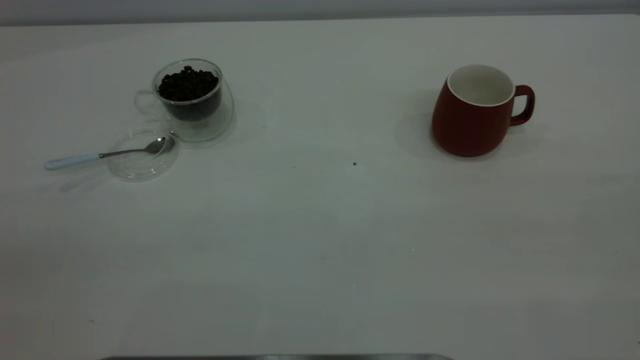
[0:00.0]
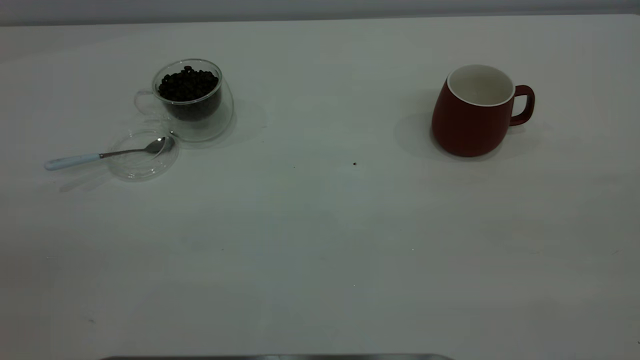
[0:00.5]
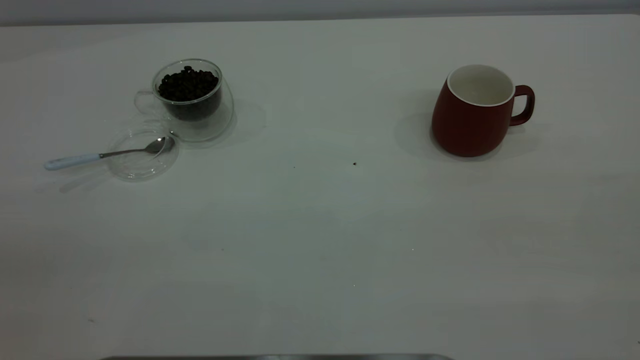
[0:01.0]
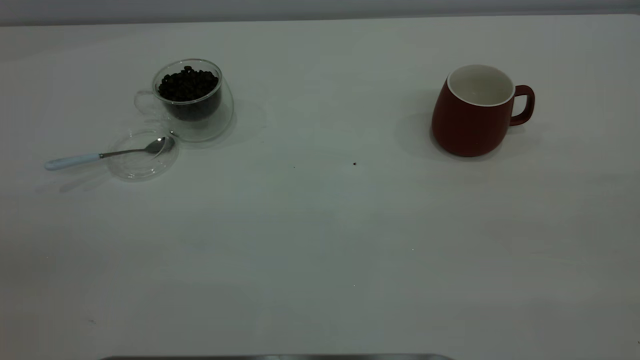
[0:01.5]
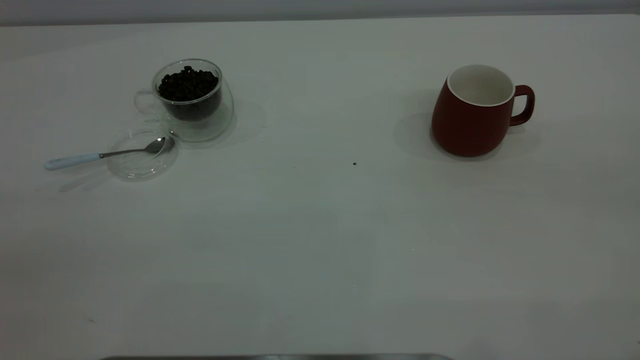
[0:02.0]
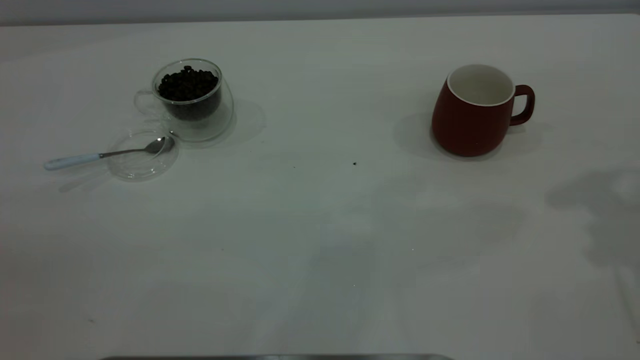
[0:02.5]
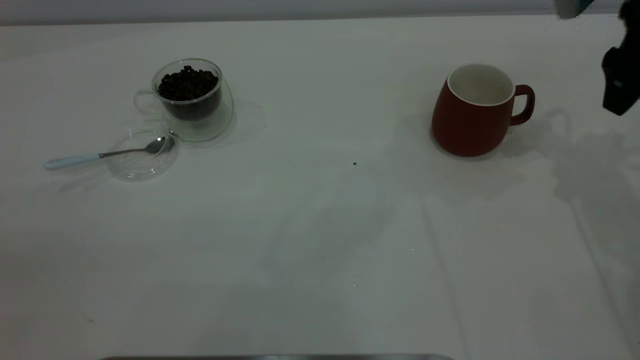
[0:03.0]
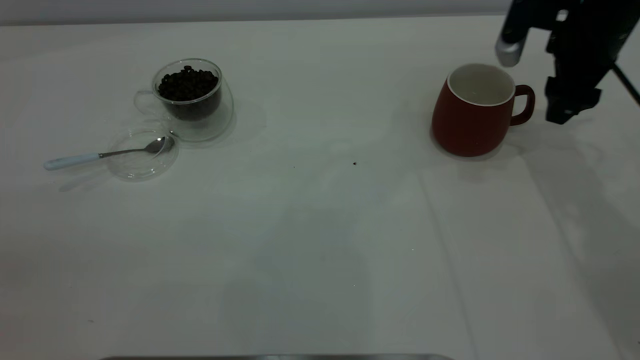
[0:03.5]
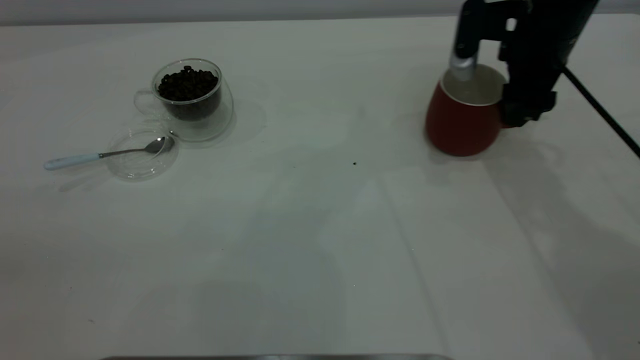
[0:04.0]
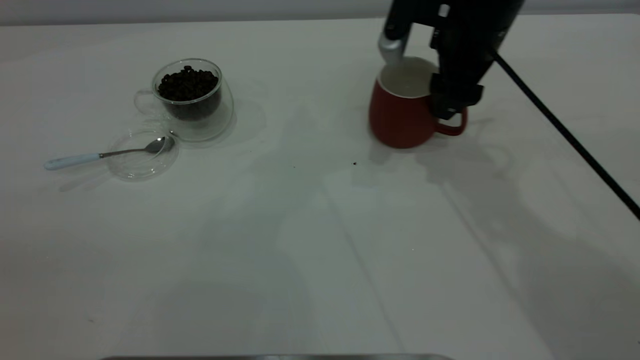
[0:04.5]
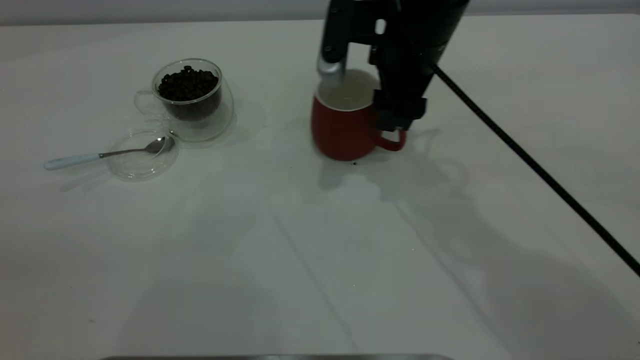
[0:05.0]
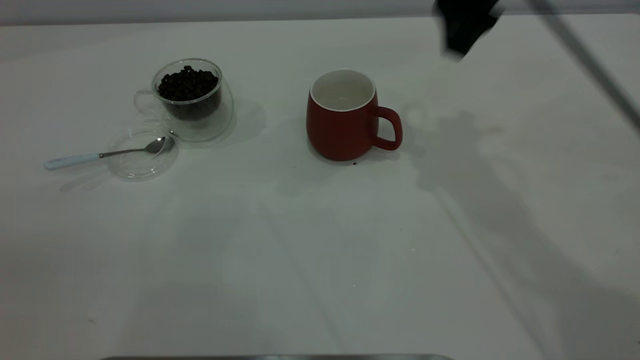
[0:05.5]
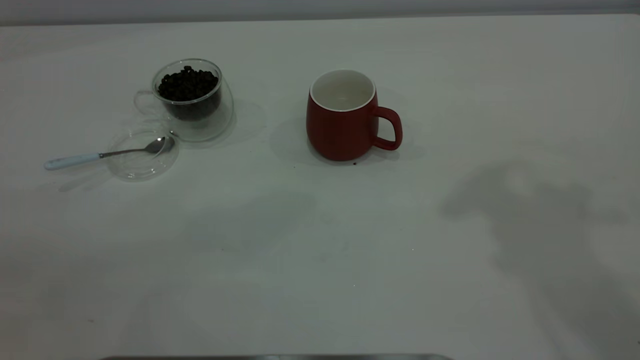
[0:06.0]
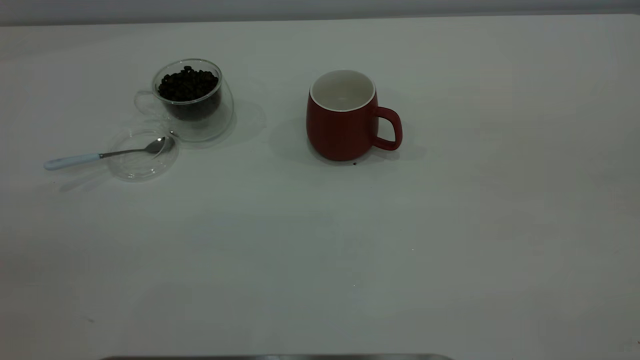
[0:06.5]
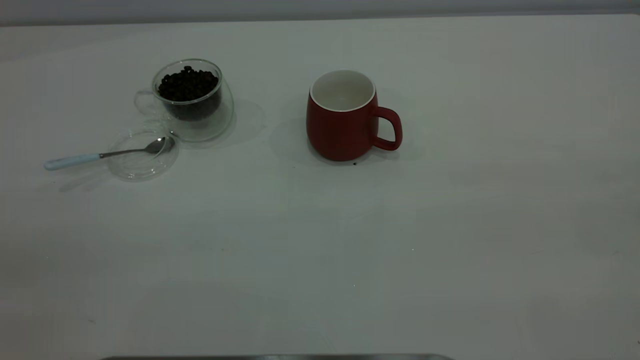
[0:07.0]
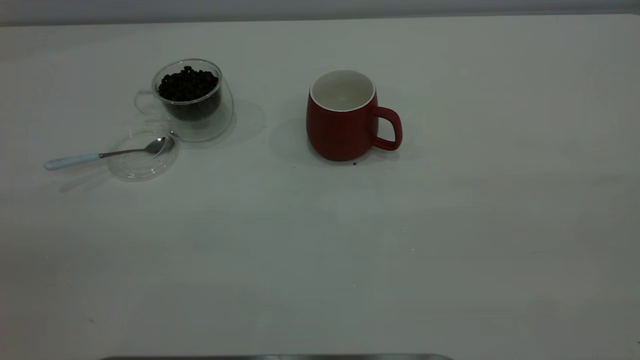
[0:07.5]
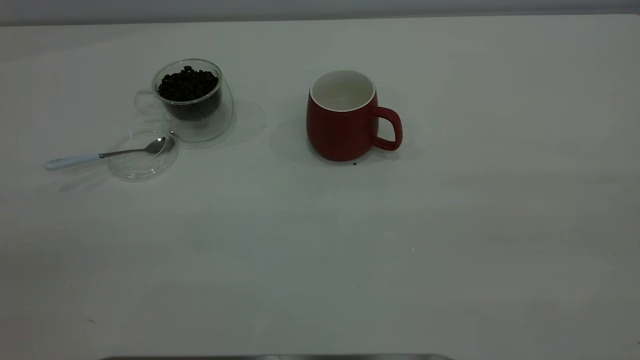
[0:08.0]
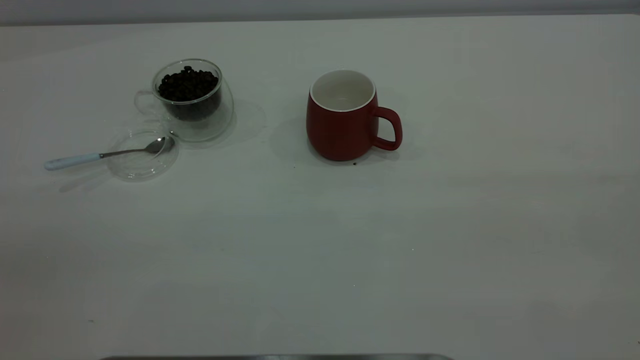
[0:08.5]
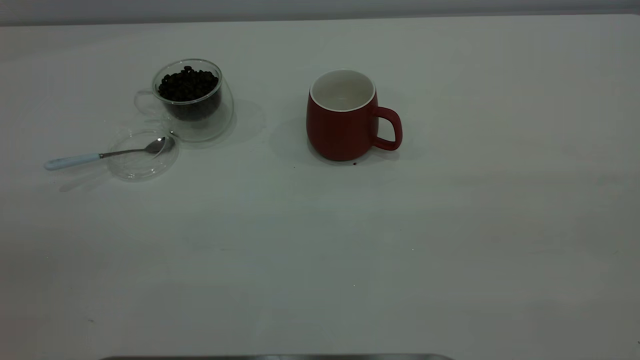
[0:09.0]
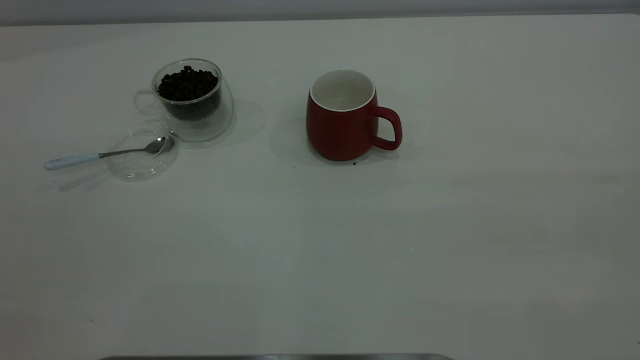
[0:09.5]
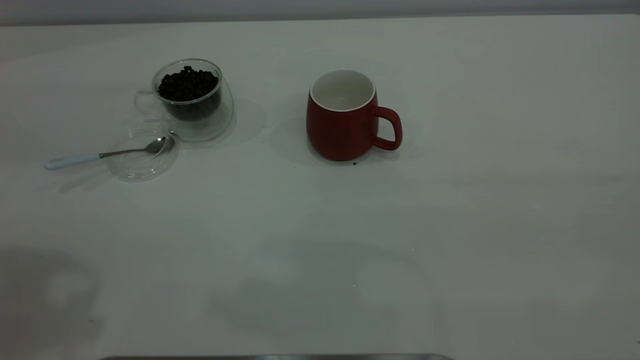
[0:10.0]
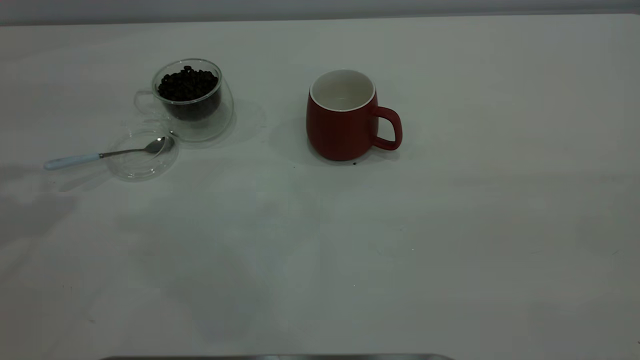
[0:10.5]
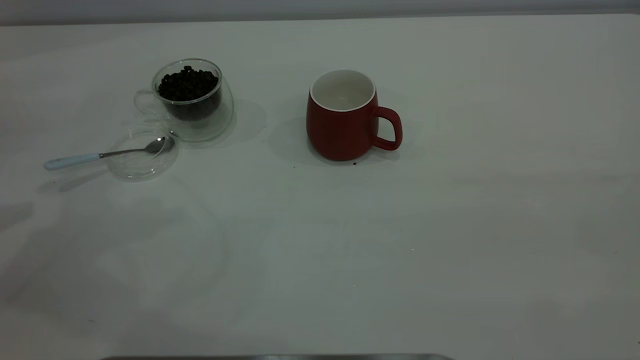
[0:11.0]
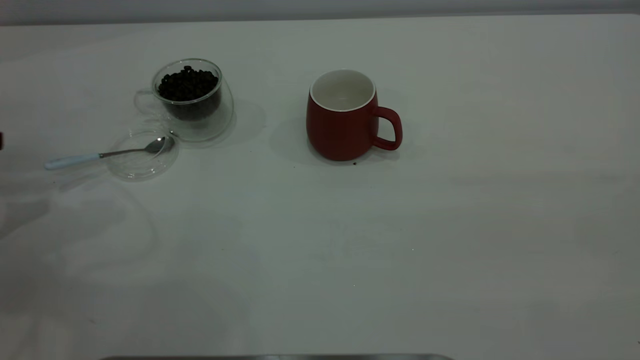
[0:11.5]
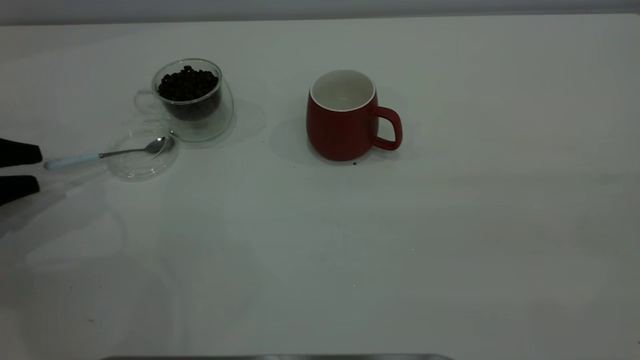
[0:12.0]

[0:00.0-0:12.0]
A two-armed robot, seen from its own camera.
Task of the whole recording: the right gripper place the red cup in the center of the table, the left gripper take the blue spoon from the cup lid and scoop out the coffee beans from the coffee cup and put them into the red cup, the left gripper put the spoon back into the cup lid.
Step, 0:00.0 to 0:05.0: Move the cup to the center of view.
0:02.0 to 0:04.0: The right gripper is displaced forward and downward by some 40 cm.
0:04.0 to 0:06.0: The right gripper is displaced upward and backward by about 35 cm.
0:10.0 to 0:12.0: The left gripper is displaced downward and to the left by about 35 cm.

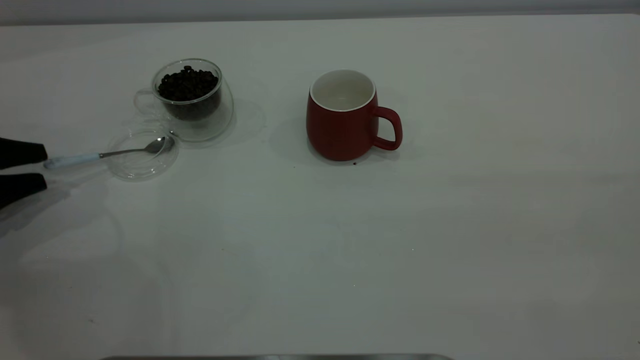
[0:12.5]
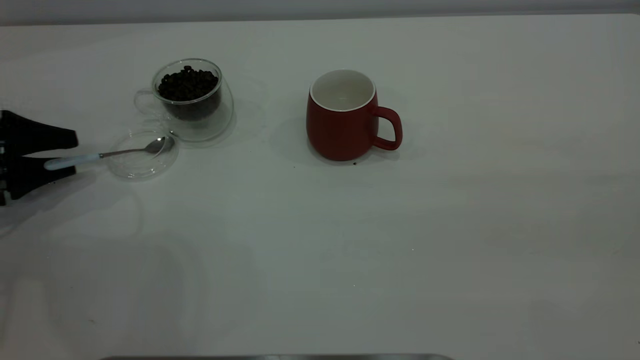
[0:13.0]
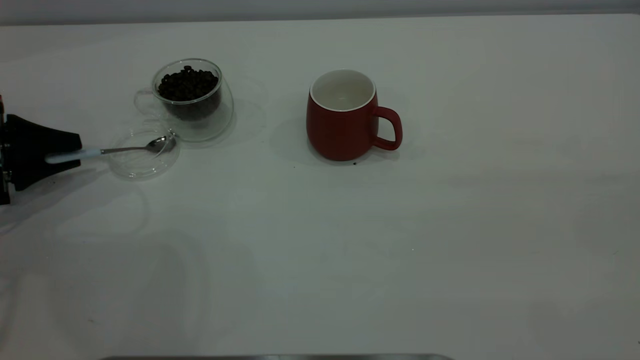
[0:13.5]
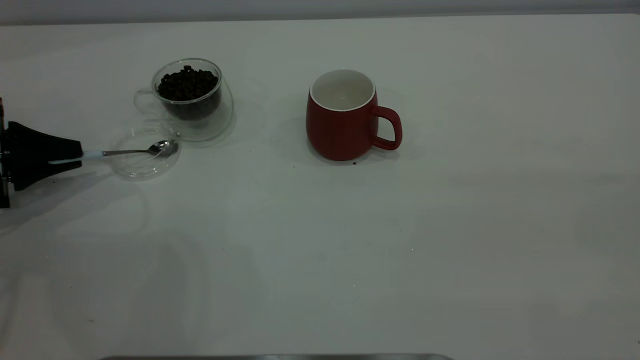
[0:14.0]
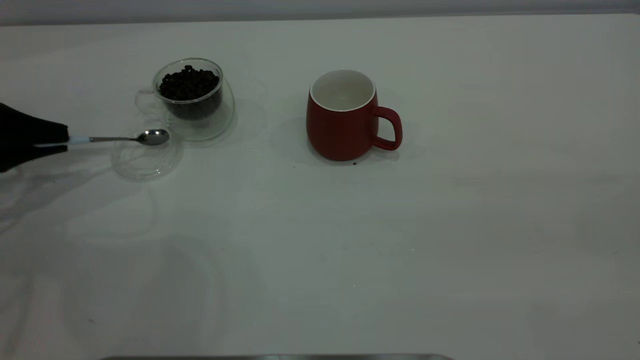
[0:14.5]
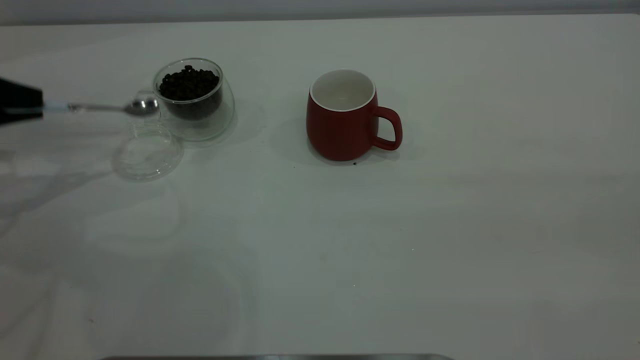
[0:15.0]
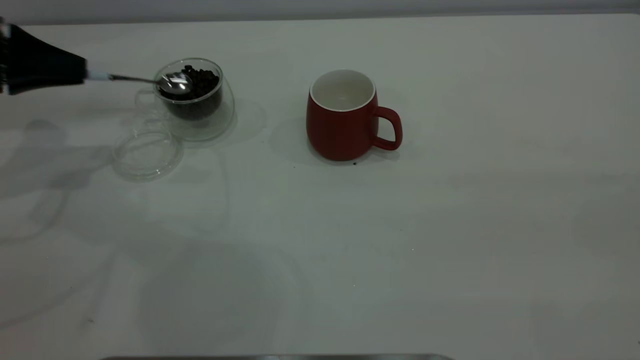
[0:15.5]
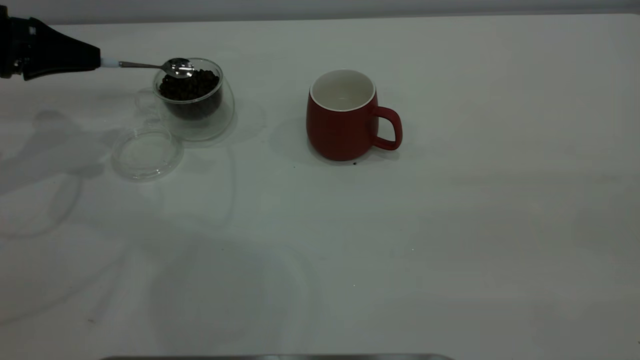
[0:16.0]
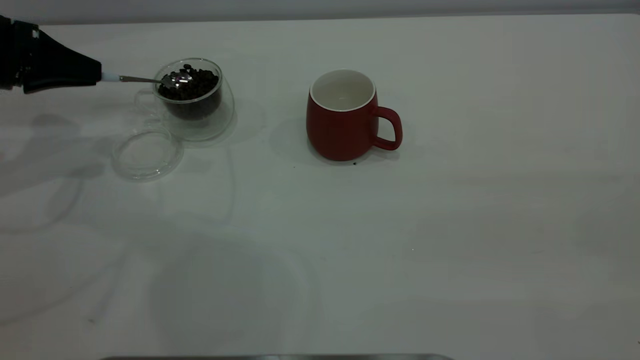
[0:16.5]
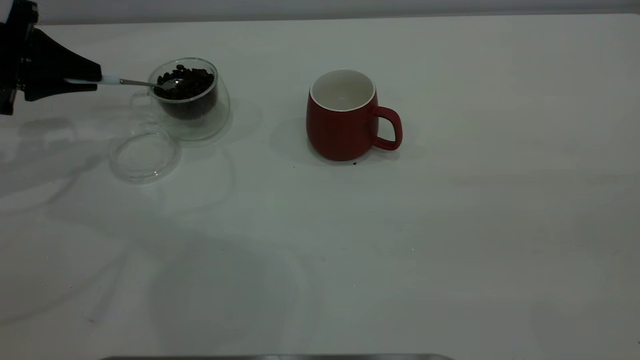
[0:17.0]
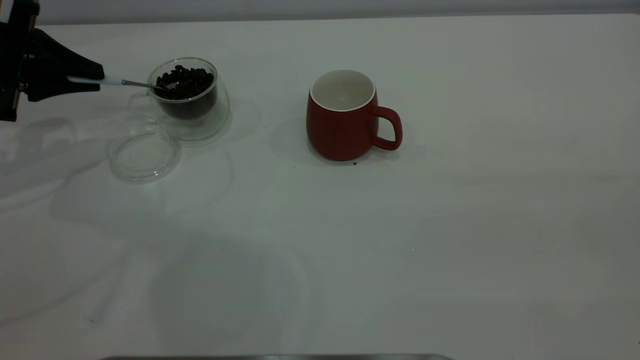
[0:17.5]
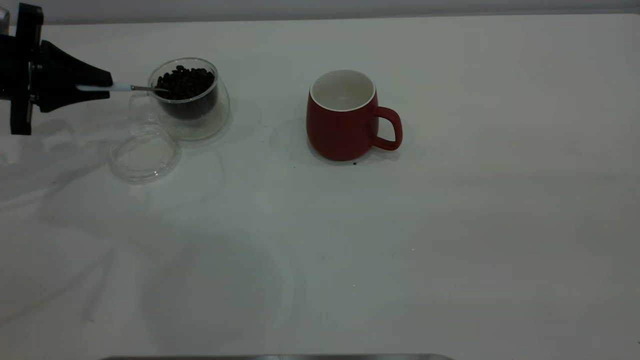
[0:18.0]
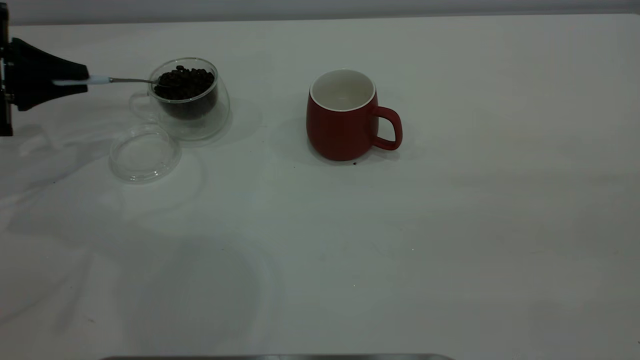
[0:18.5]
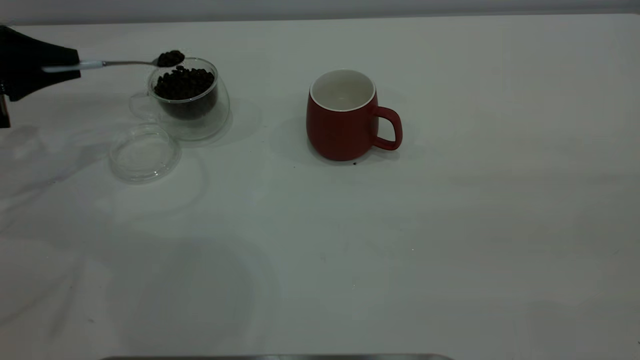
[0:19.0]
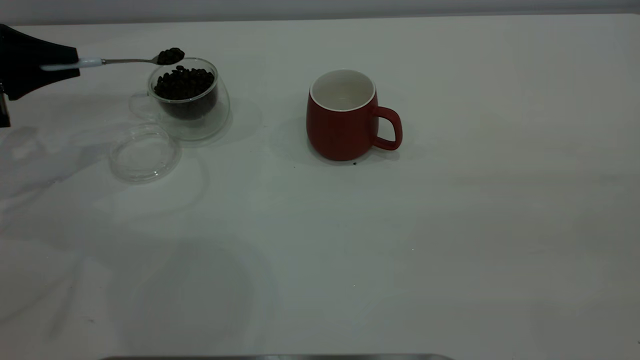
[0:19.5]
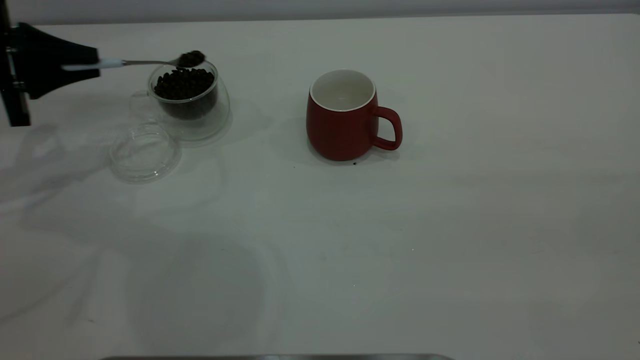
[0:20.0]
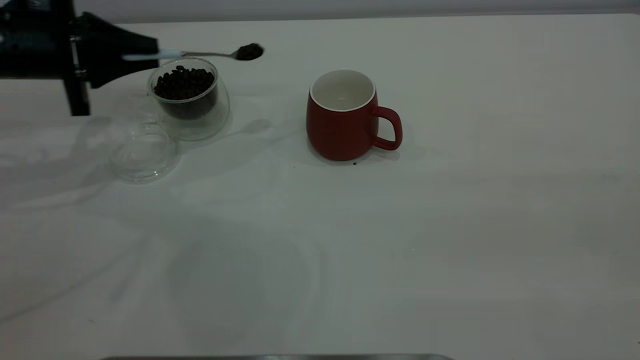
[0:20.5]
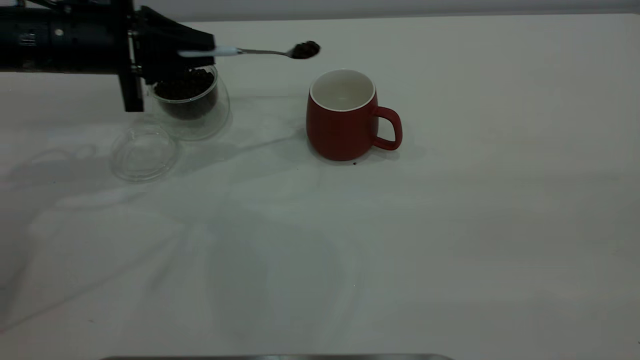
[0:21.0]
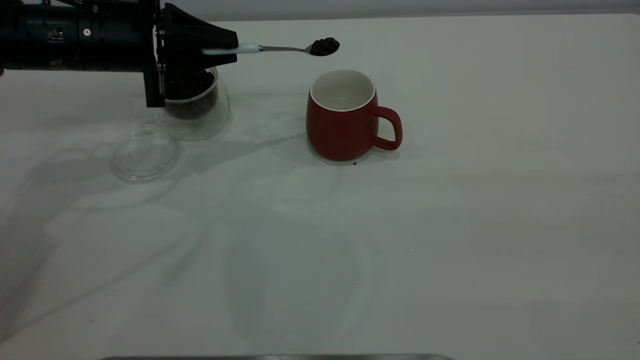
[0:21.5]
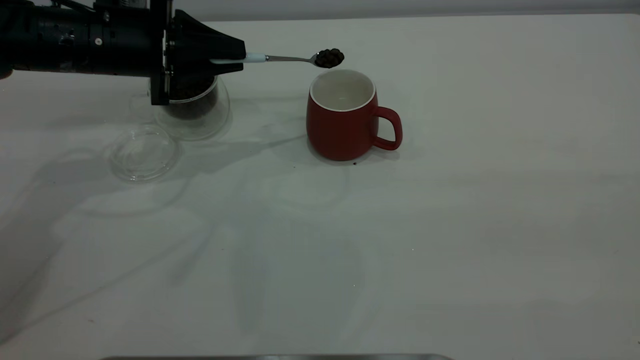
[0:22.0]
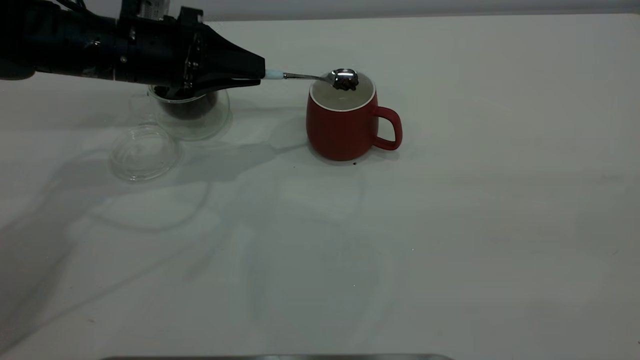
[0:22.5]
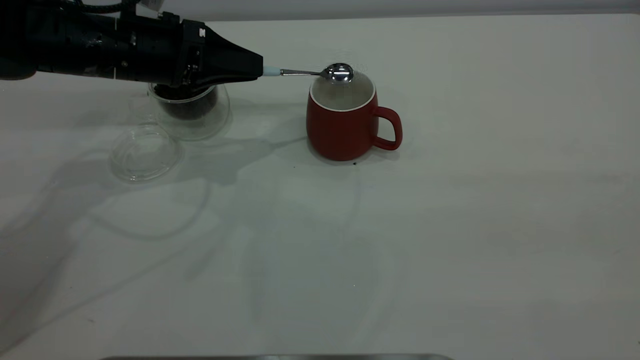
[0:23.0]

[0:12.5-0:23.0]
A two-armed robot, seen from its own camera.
Task of the whole recording: the right gripper place the red cup in the center of the table, the left gripper take the blue spoon from the cup lid and scoop out the coffee beans from the coffee cup and put them into the red cup, the left gripper put the spoon back into the cup lid.
Step, 0:12.5 to 0:14.5: Pick up the spoon.
0:12.5 to 0:14.5: The left gripper shifts by about 5 cm, and closes up.
0:14.5 to 0:16.5: The left gripper travels upward and forward by some 10 cm.
0:19.0 to 0:21.0: The left gripper is displaced to the right by roughly 15 cm.
